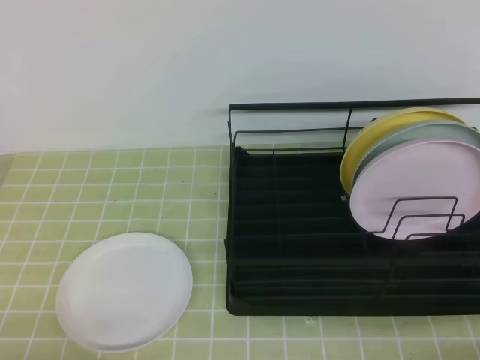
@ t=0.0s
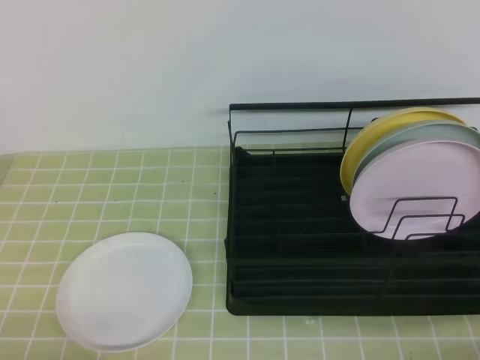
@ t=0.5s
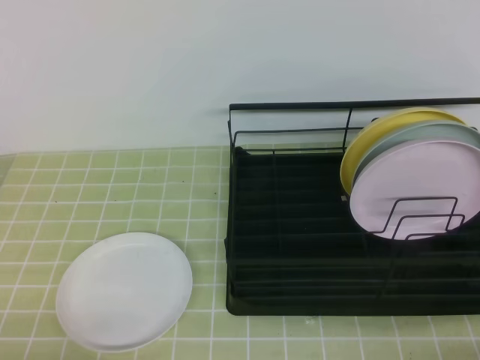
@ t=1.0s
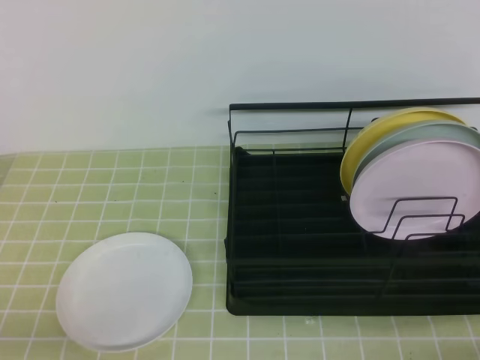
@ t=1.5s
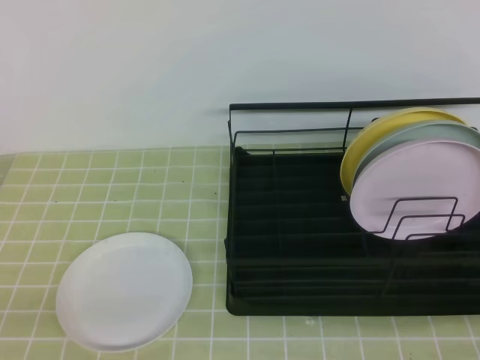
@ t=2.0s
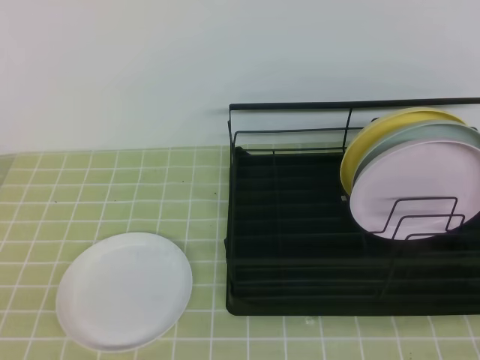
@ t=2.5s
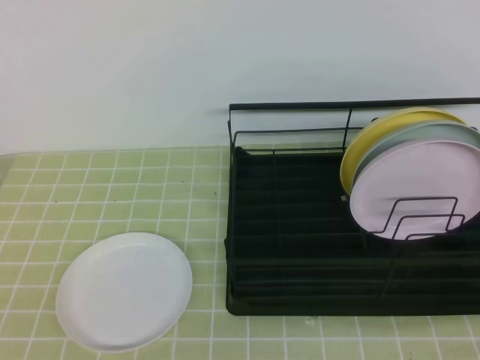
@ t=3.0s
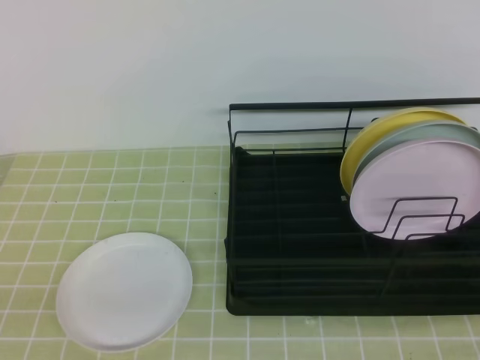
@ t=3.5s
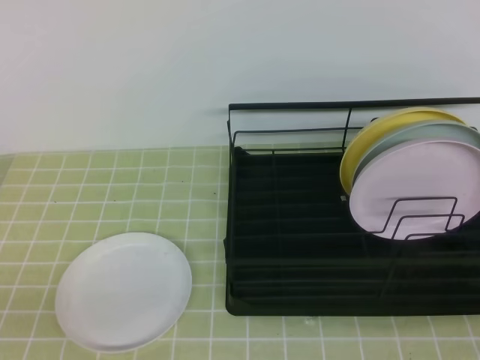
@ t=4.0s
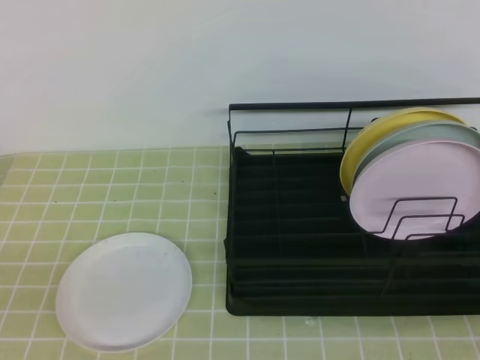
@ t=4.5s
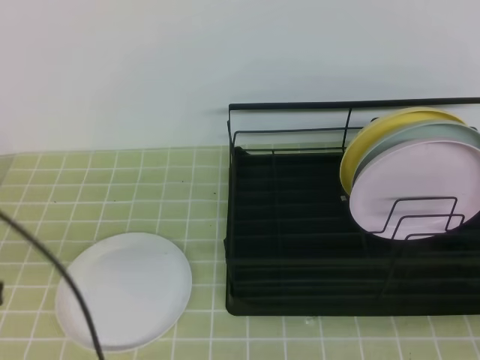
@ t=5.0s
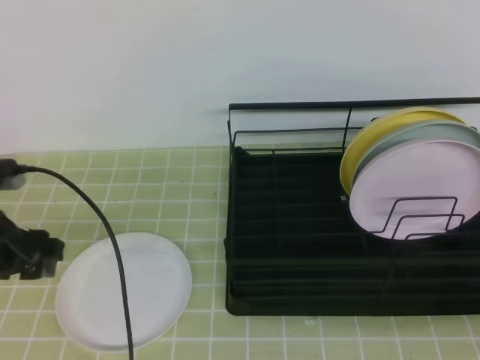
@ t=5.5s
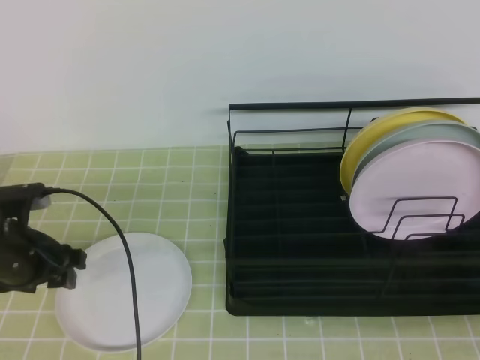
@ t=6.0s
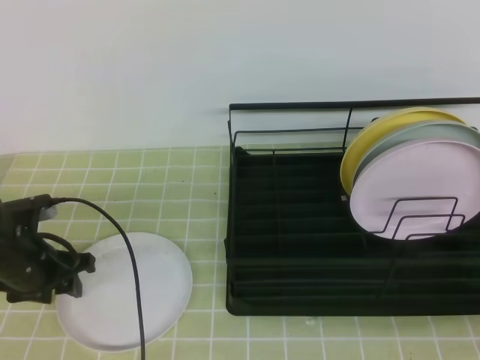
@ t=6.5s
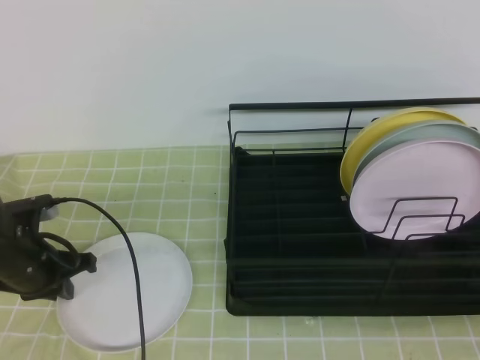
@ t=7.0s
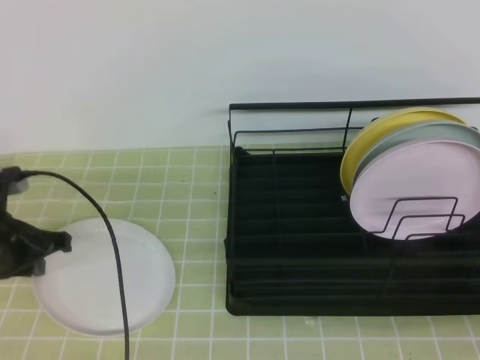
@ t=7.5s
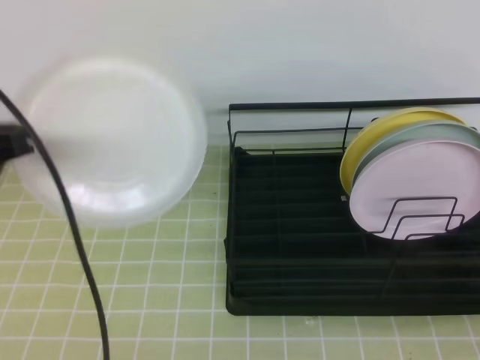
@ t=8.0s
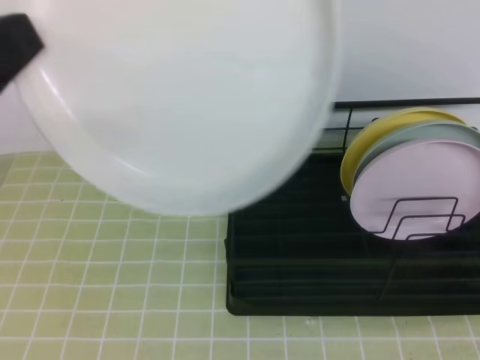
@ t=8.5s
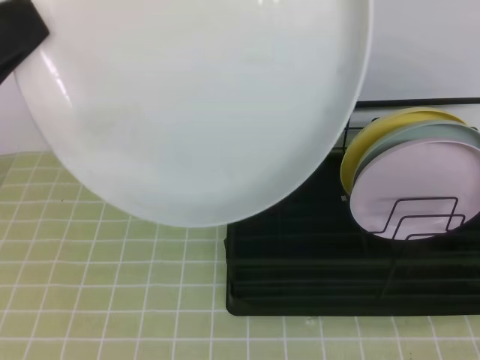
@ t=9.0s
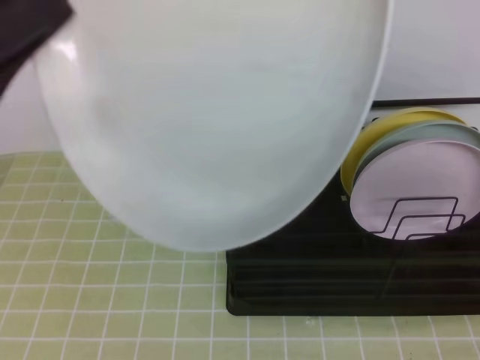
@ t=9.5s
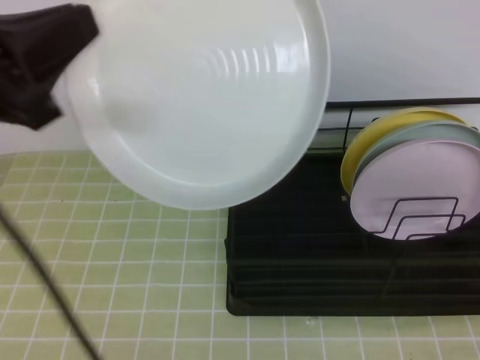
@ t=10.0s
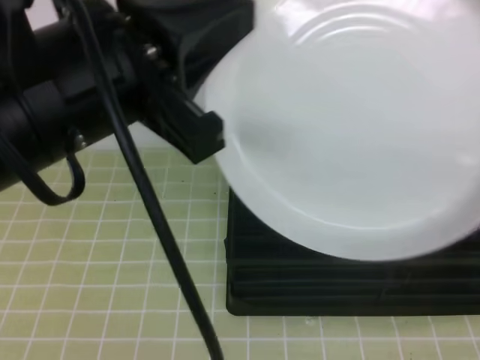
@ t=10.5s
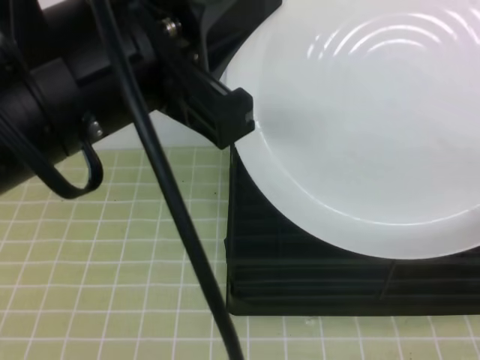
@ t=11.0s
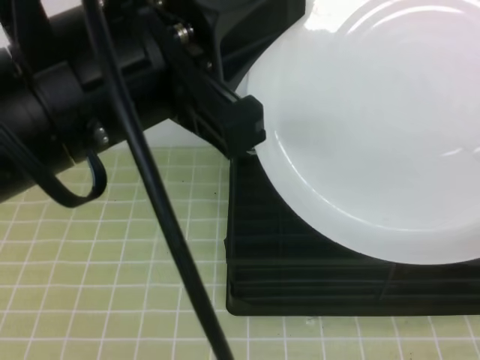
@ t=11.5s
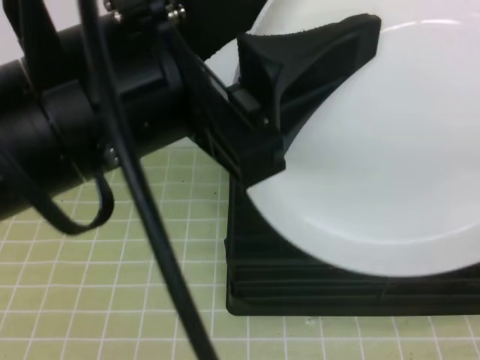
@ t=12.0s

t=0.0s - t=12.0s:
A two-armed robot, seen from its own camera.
Step, t=0.0s - t=5.5s: Left grab the white plate.
Step, t=6.0s - t=9.5s: Right receive the plate.
t=4.0s - t=6.0s: The left gripper shifts about 25 cm forward, and opens up.
t=6.0s - t=8.0s: The left gripper is displaced upward and backward by about 20 cm, and closes up.
t=8.0s - t=10.0s: The right gripper heads upward, covering approximately 15 cm, and opens its fingers. The left gripper goes approximately 10 cm upward and to the right, and goes backward and returns, some 10 cm each way.
t=10.0s - t=12.0s: The right gripper goes roughly 5 cm forward, and closes up. Meanwhile the left gripper shifts roughly 10 cm to the right, and opens up.

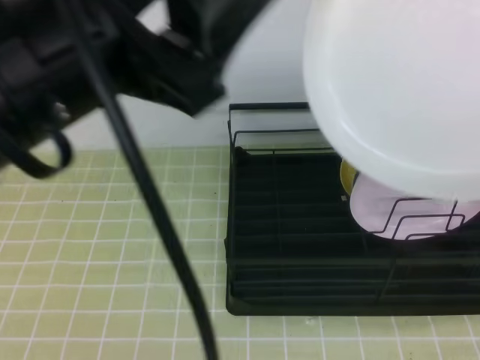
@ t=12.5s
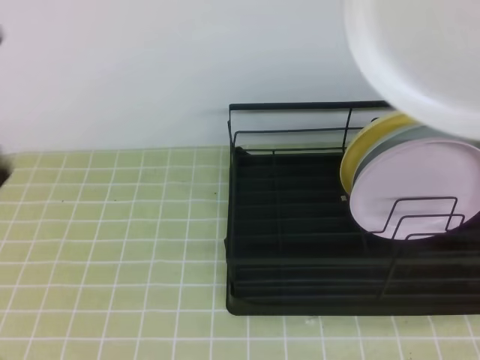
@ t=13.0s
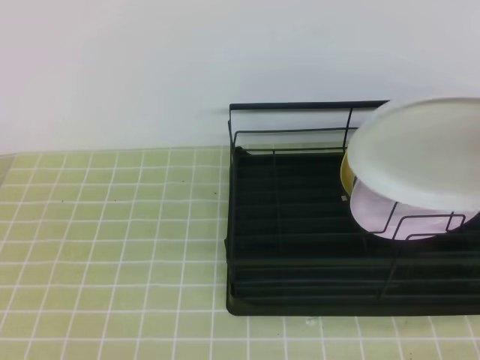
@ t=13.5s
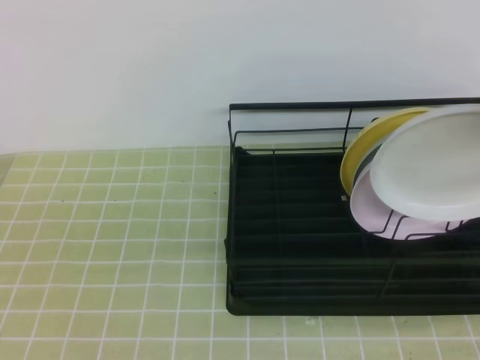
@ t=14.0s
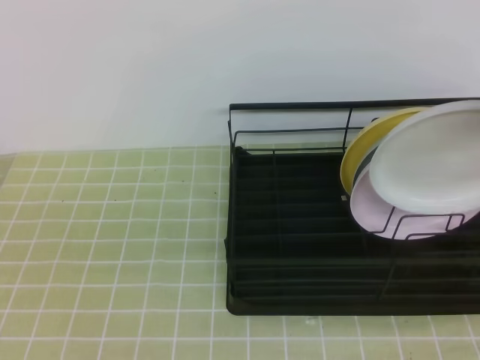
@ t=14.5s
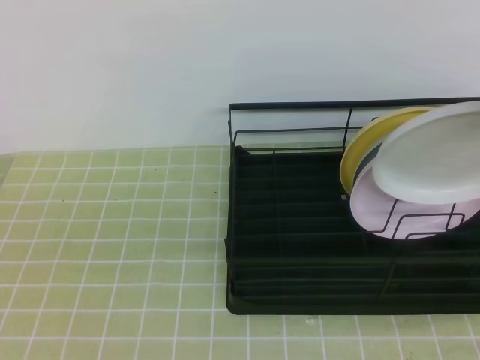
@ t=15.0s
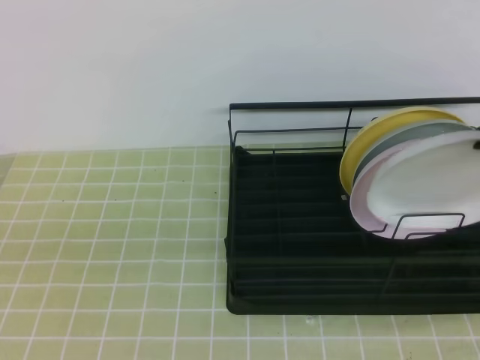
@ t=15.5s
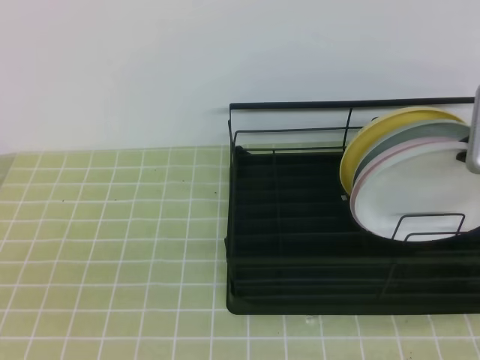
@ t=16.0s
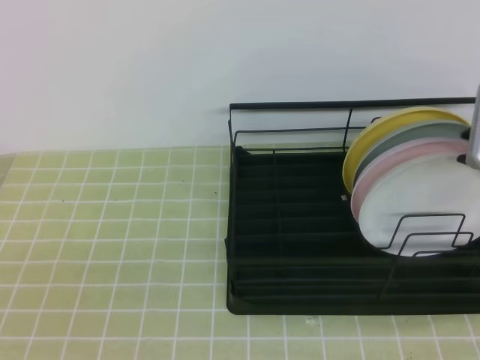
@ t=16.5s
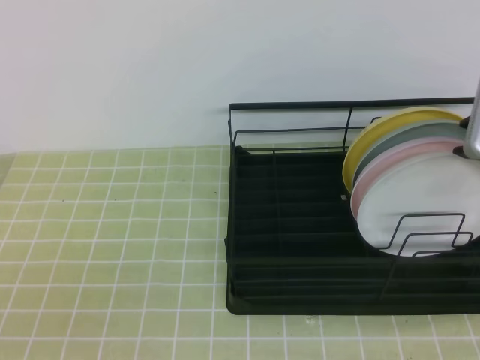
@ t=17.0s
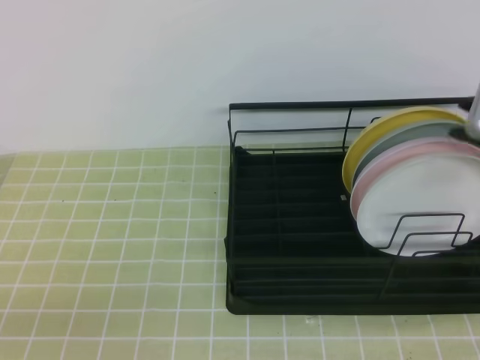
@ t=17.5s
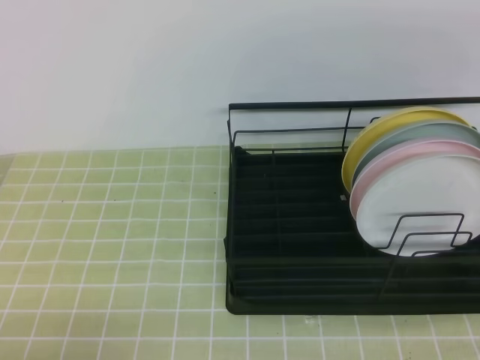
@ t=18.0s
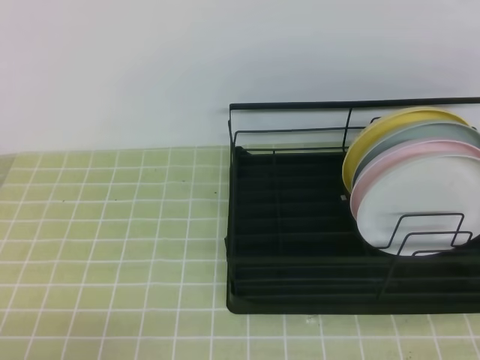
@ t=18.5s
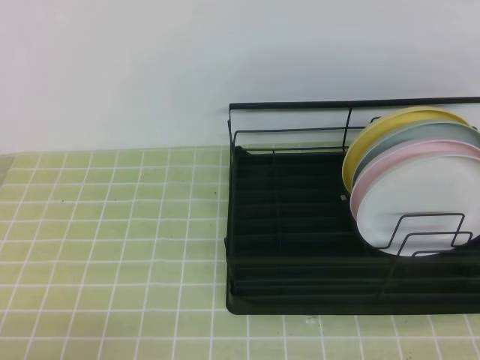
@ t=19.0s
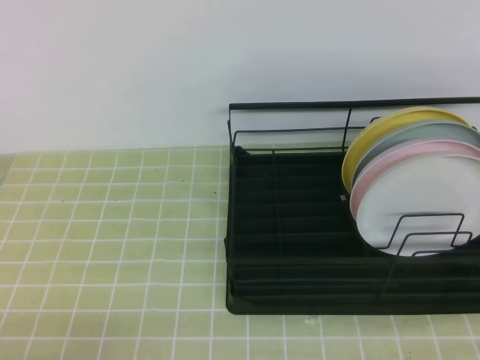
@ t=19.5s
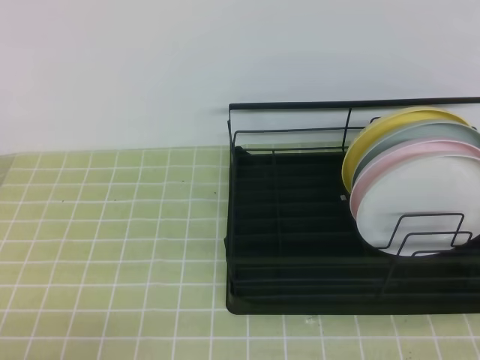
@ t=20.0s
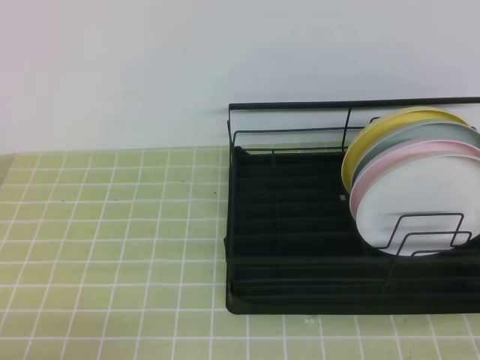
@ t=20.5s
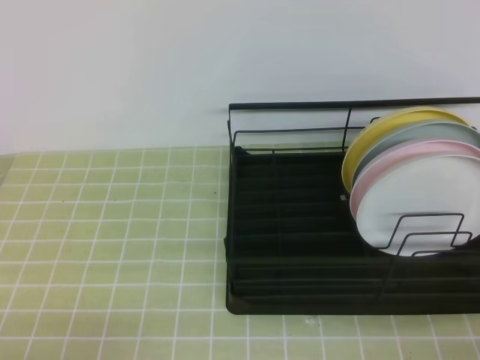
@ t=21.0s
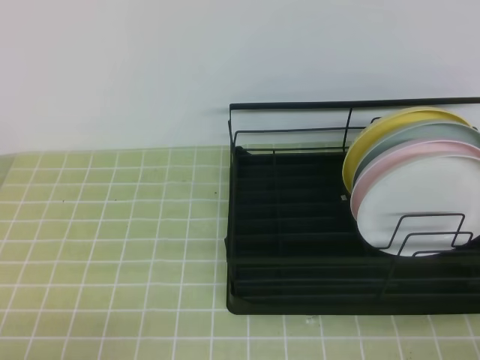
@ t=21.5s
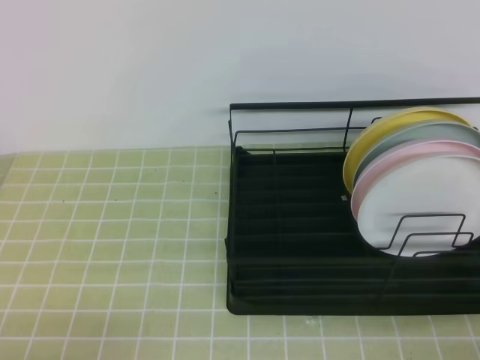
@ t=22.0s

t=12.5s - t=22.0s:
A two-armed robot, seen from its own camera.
t=12.5s - t=14.5s: The right gripper moves forward, some 15 cm; the left gripper moves downward, to the left and backward, roughly 20 cm, and closes its fingers.
t=16.5s - t=18.0s: The right gripper goes about 15 cm upward.
t=20.0s - t=22.0s: The right gripper travels downward by some 15 cm.
